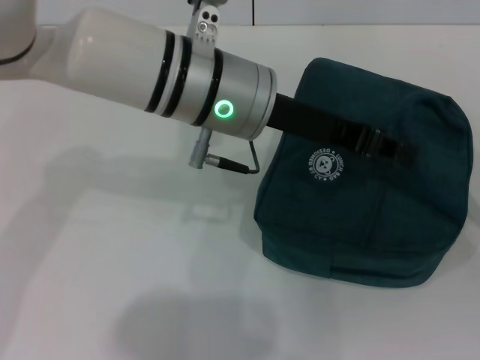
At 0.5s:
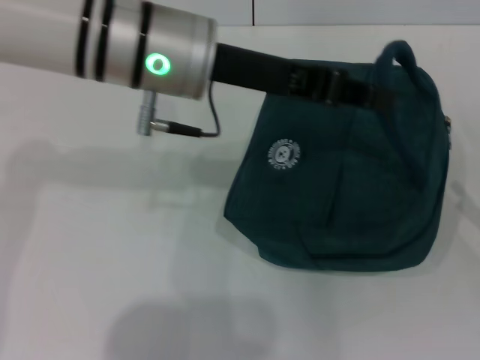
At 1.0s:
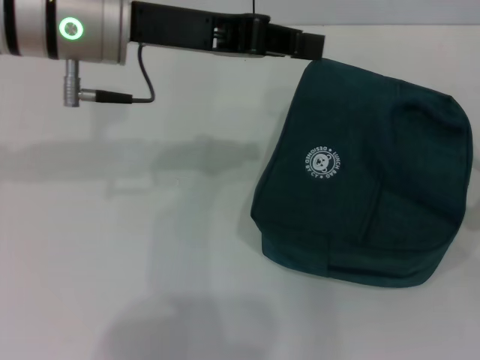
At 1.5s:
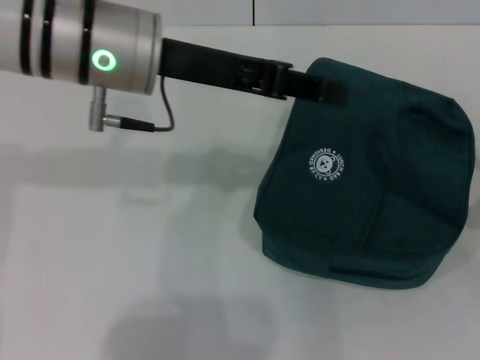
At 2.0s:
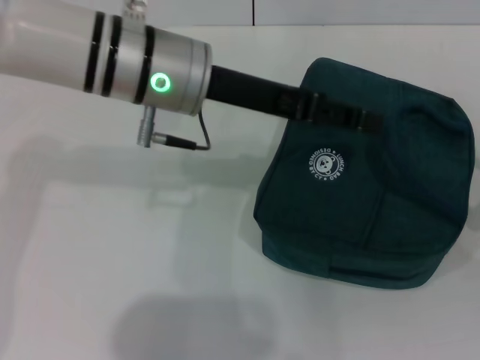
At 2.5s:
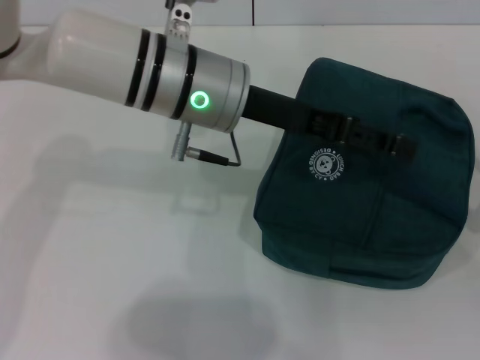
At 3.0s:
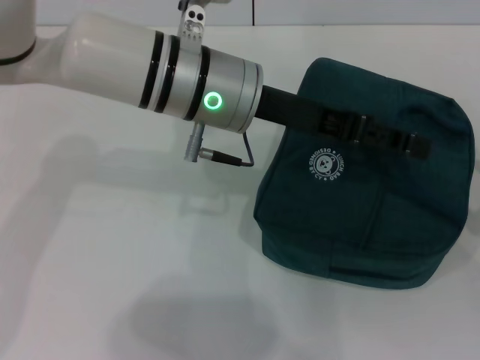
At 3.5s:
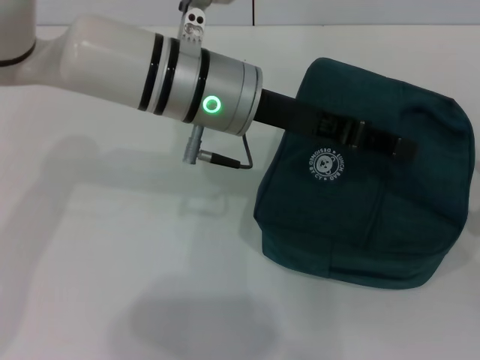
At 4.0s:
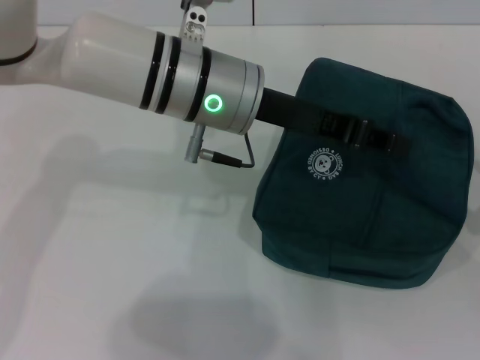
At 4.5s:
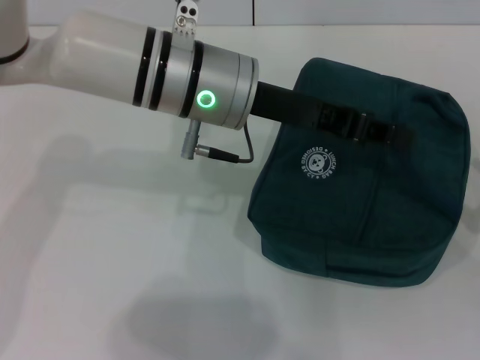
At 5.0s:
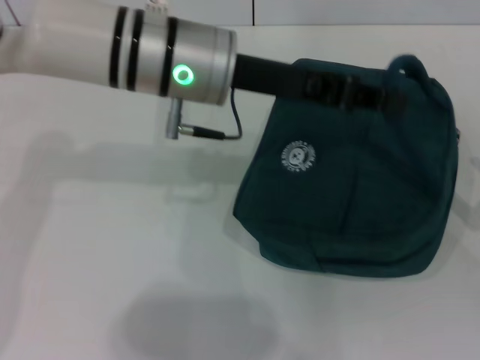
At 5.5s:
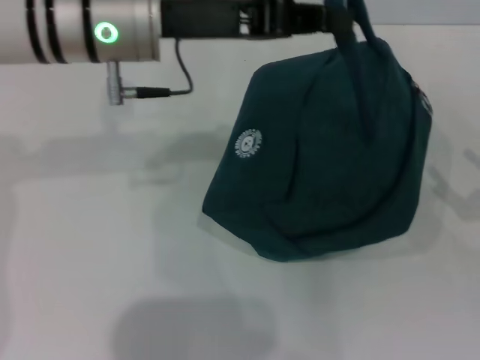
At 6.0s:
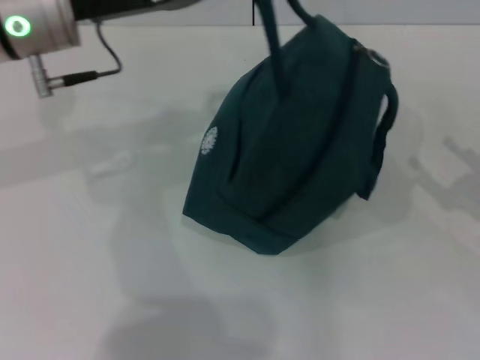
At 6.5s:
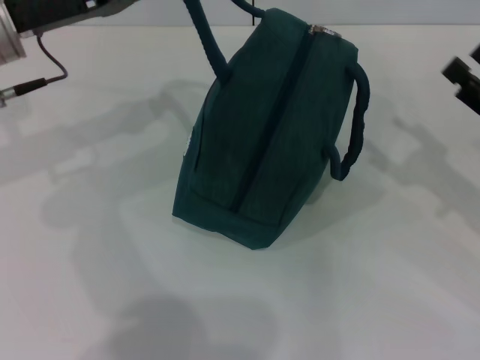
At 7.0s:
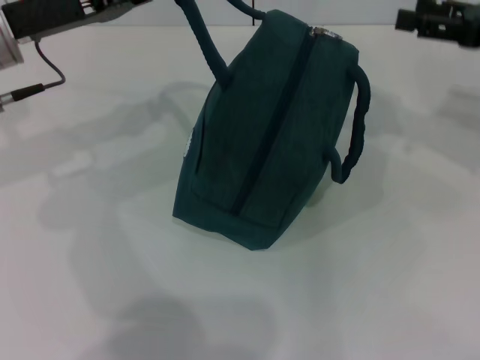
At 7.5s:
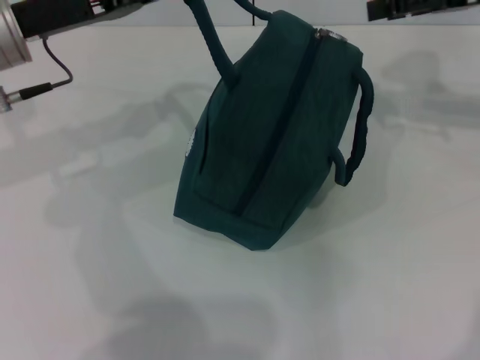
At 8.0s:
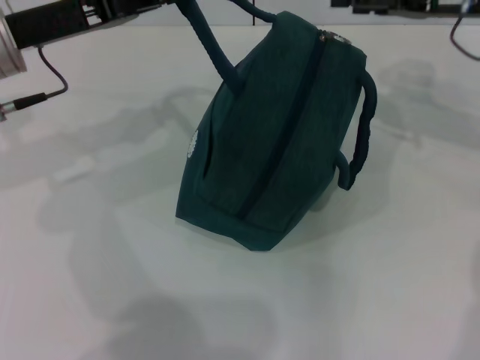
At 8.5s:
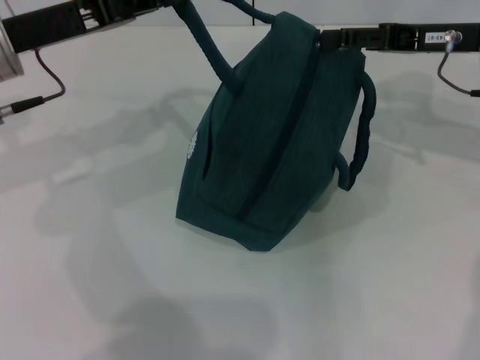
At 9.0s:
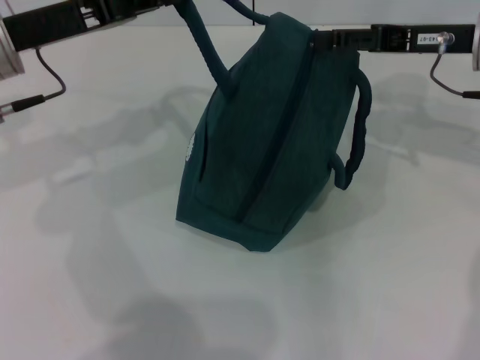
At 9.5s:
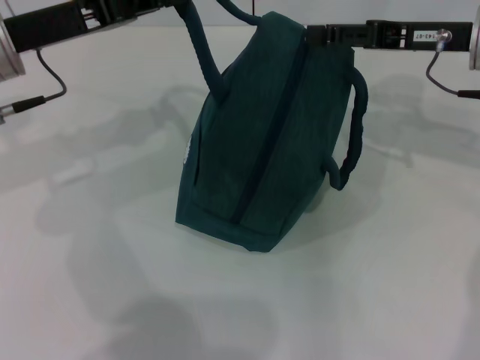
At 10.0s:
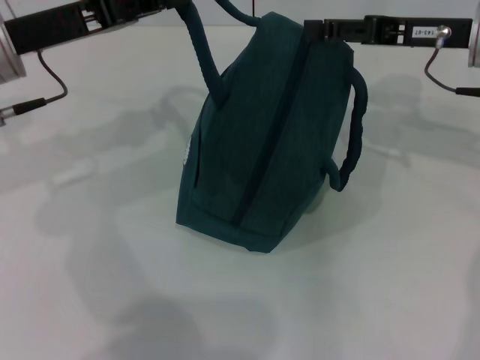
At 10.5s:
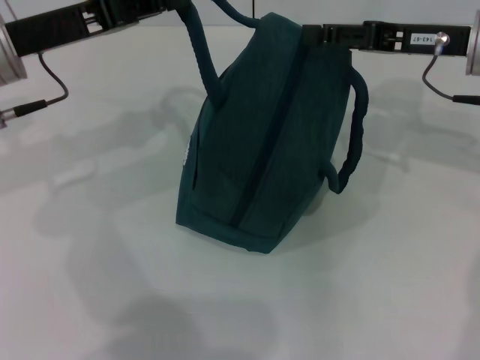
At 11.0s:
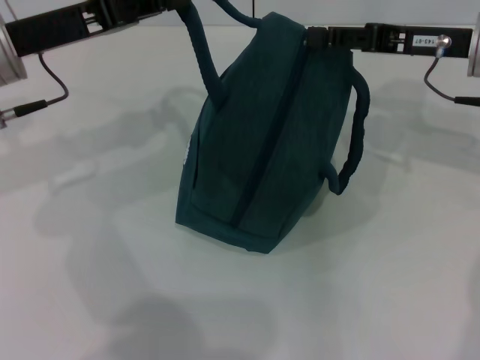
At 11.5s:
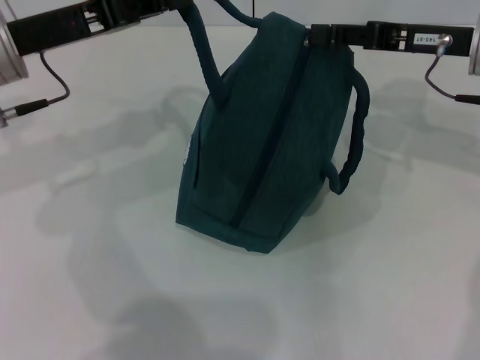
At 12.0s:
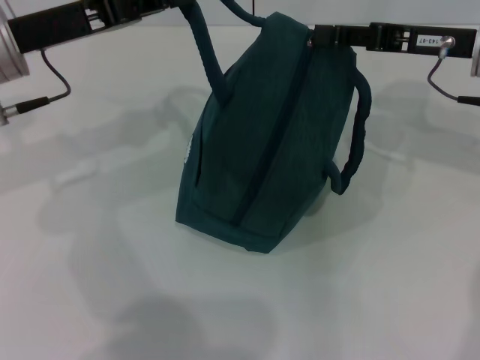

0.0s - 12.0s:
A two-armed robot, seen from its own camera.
0.0s - 2.0s: The left gripper opens up.
2.0s - 4.0s: The left gripper closes up.
4.0s - 6.0s: The left gripper heads to the left, covering approximately 15 cm.
6.0s - 8.0s: The left gripper moves roughly 5 cm. Meanwhile the right gripper goes approximately 25 cm forward, upward and to the left.
8.0s - 10.0s: There are only small adjustments of the grippers.
10.0s - 12.0s: The right gripper closes its fingers.

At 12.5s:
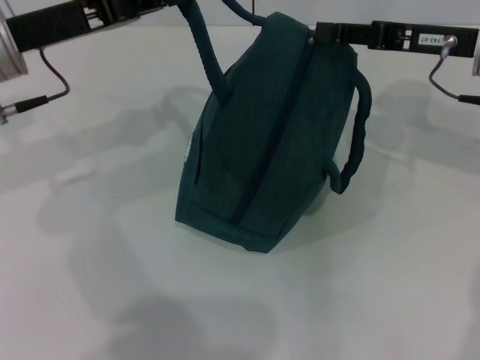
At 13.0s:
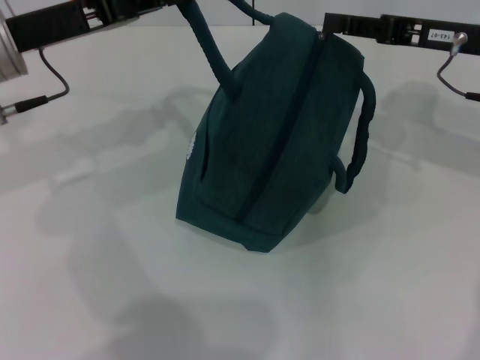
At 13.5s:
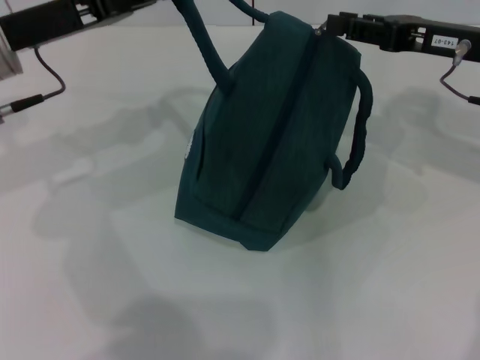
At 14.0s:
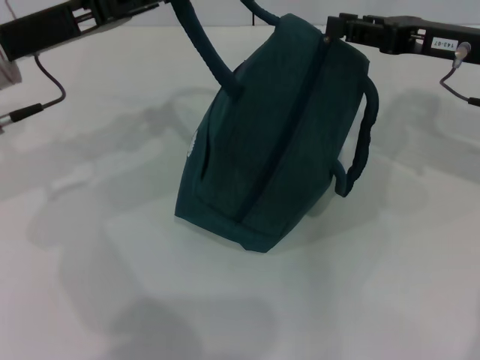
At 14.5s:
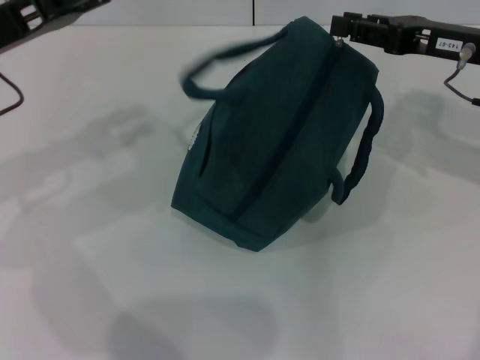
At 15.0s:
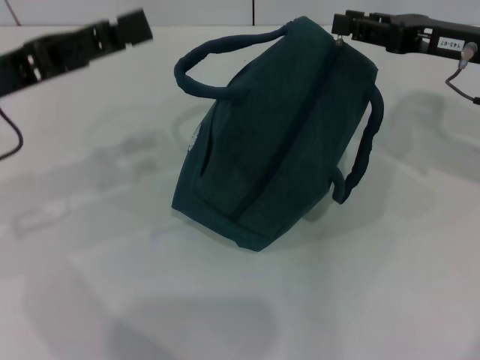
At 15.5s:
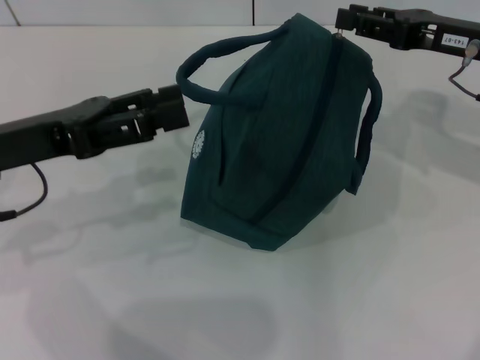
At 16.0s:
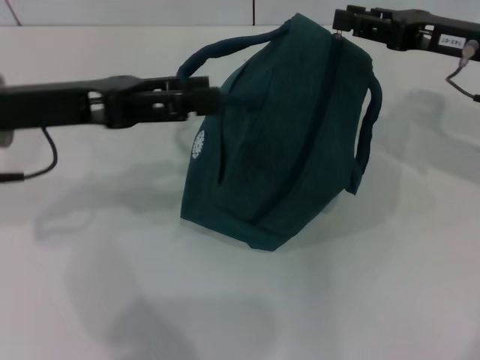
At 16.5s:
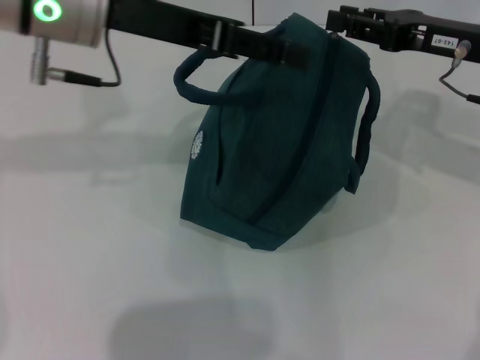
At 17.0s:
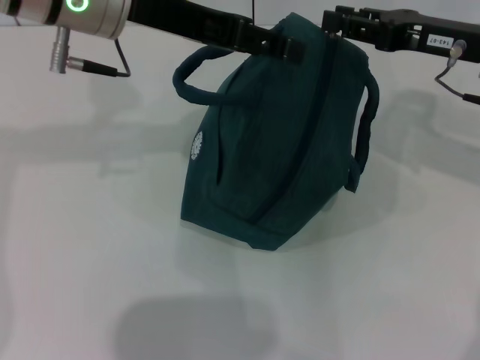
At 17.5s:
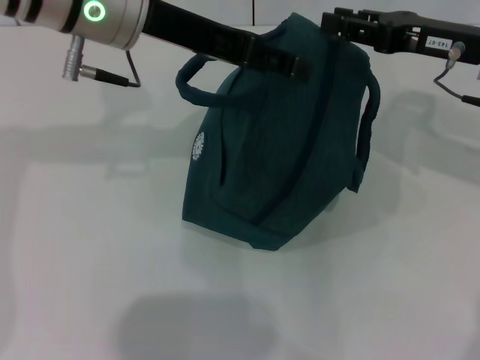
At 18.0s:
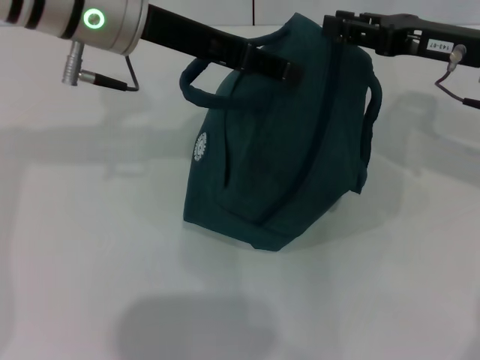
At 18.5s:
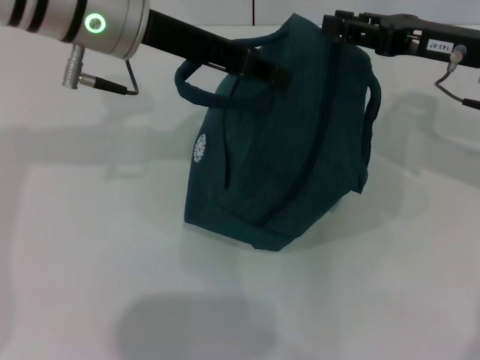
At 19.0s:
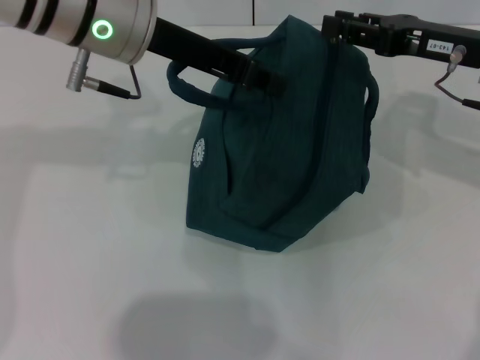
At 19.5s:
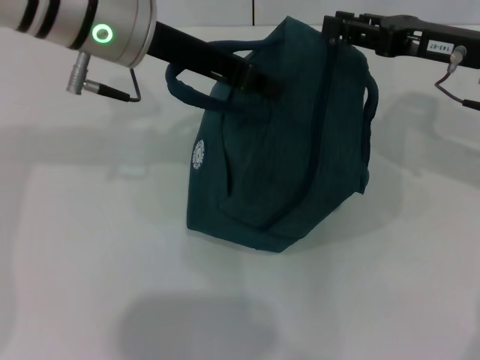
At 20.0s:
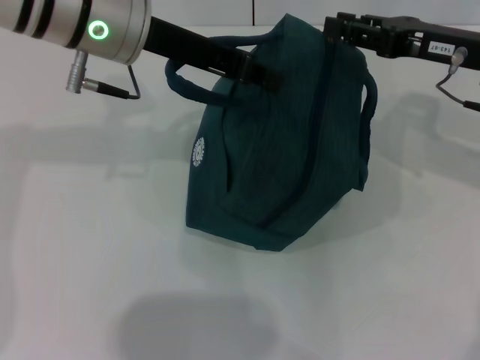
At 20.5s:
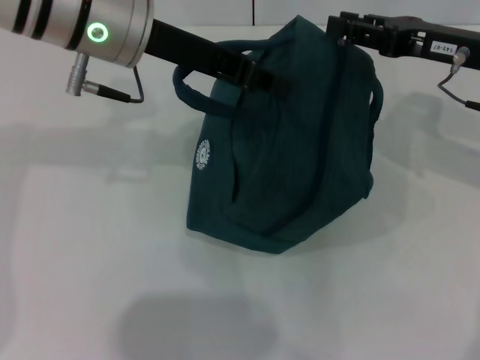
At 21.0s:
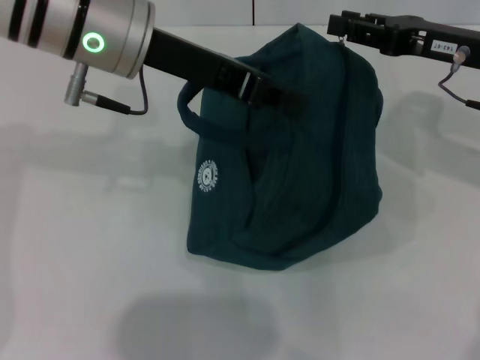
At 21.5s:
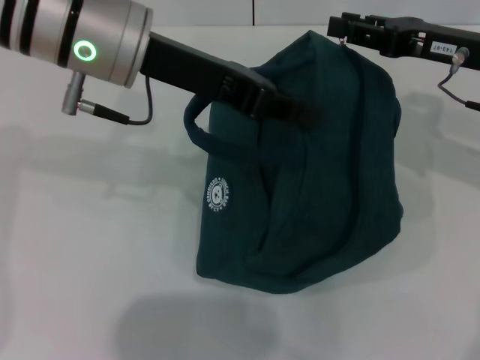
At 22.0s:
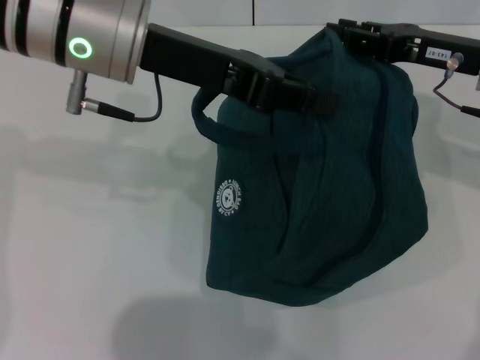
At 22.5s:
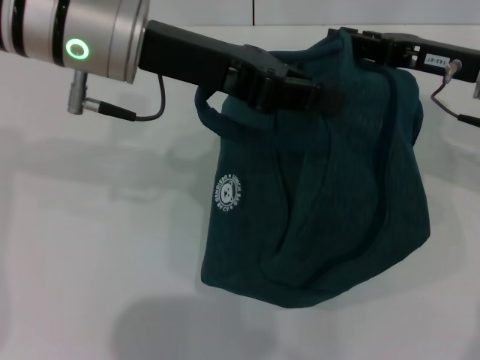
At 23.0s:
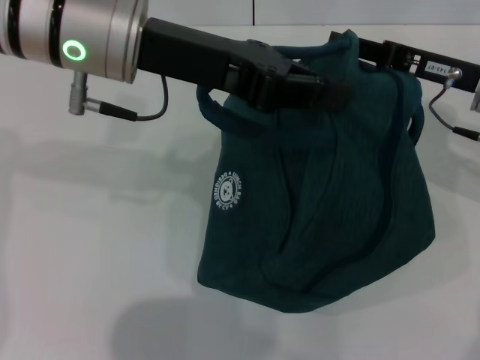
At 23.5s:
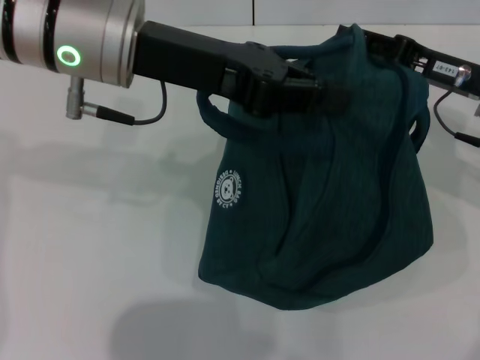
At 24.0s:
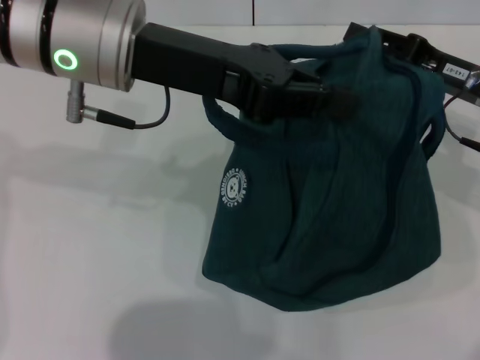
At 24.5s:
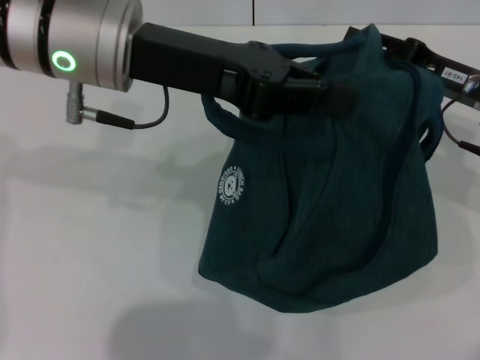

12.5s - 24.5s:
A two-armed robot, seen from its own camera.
12.5s - 14.5s: The left gripper opens.
14.5s - 16.5s: The left gripper shifts some 15 cm to the right and upward.
16.5s - 18.5s: The left gripper closes its fingers.
18.5s - 20.5s: Both grippers stay put.

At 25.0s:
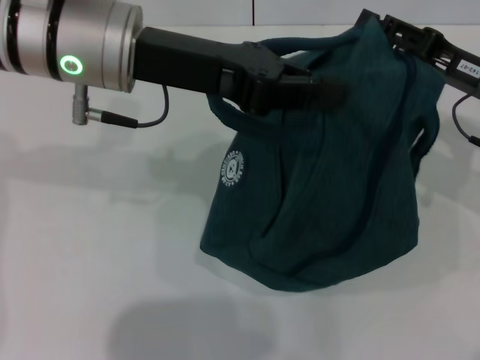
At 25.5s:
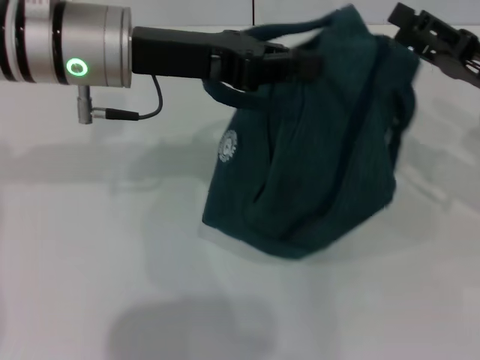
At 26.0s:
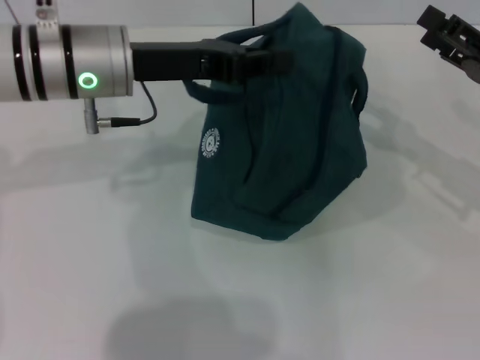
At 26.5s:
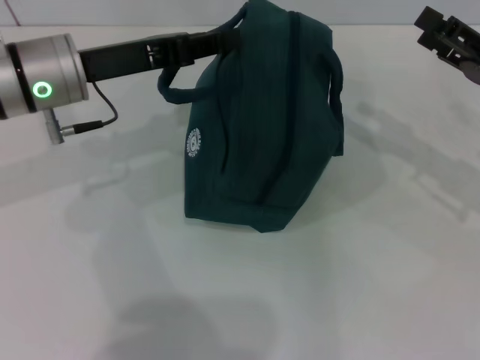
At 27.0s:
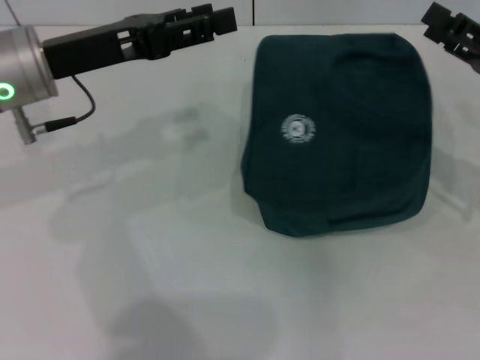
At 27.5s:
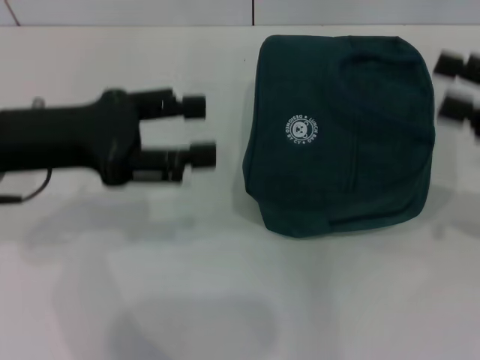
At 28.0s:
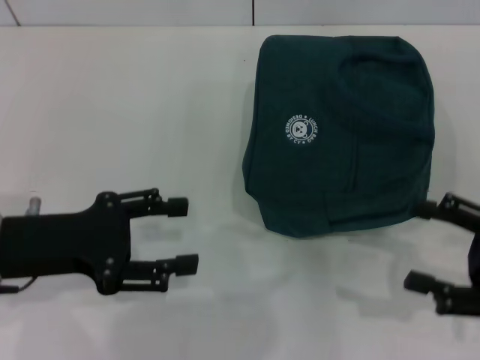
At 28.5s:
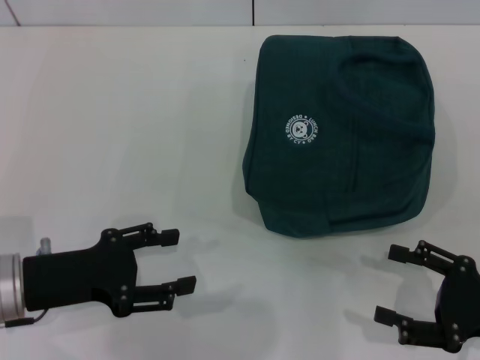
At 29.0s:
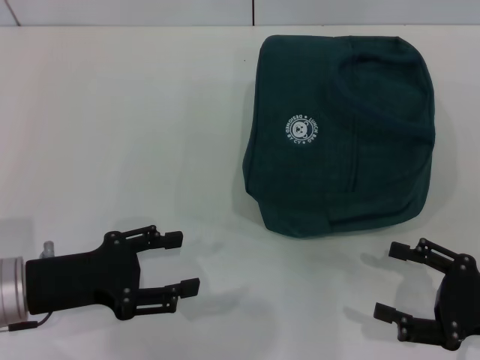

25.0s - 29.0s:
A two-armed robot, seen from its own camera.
Step, 25.5s - 27.0s: Hold the lunch bag with your left hand.
25.0s - 27.0s: The right gripper changes place by approximately 5 cm, and opens. The left gripper travels to the left and downward by roughly 10 cm, and opens.
27.0s - 29.0s: Both grippers travel together backward and downward, roughly 15 cm.
